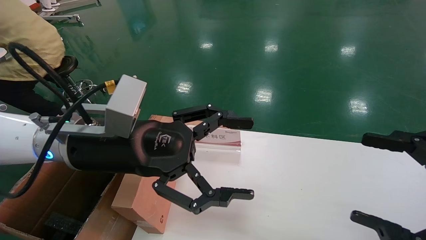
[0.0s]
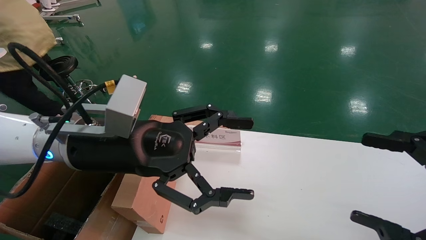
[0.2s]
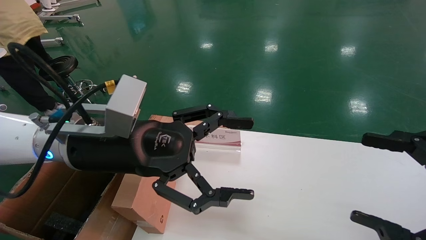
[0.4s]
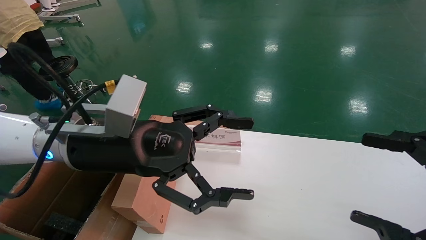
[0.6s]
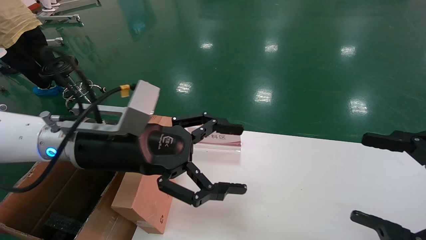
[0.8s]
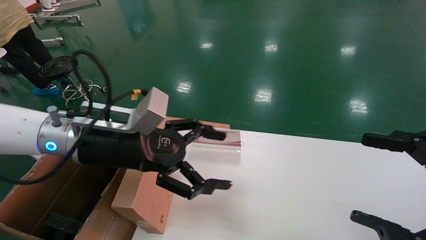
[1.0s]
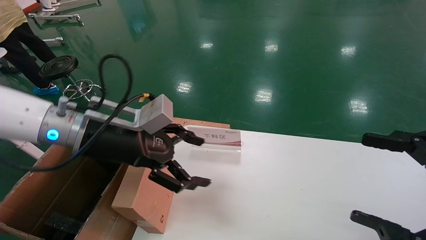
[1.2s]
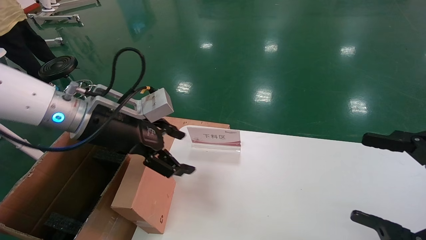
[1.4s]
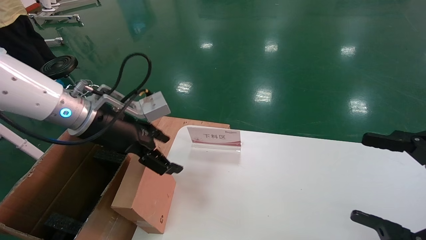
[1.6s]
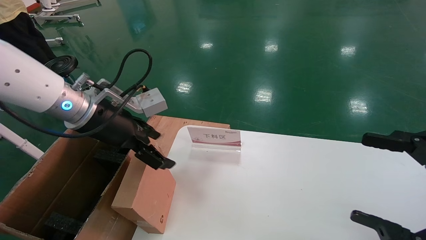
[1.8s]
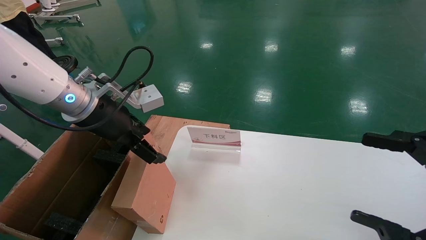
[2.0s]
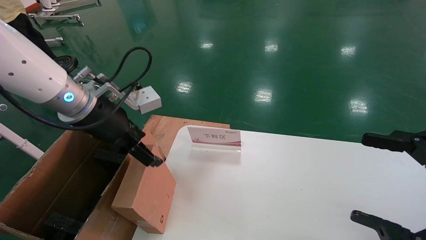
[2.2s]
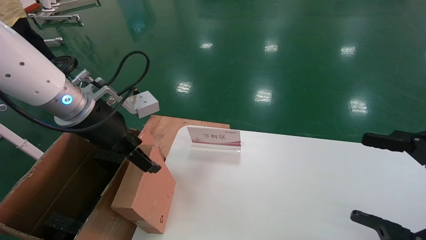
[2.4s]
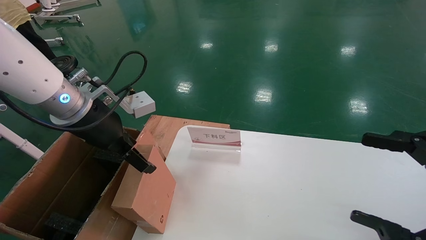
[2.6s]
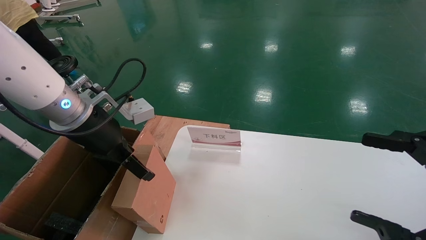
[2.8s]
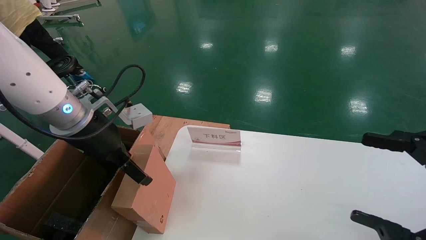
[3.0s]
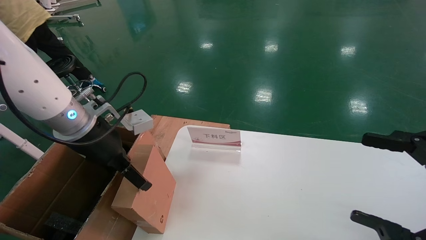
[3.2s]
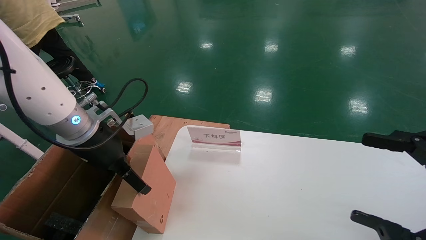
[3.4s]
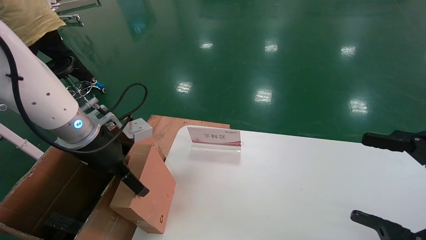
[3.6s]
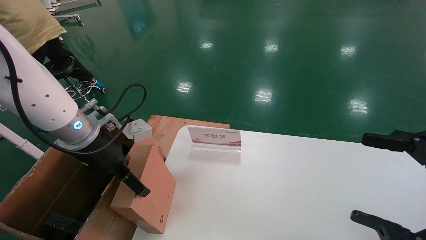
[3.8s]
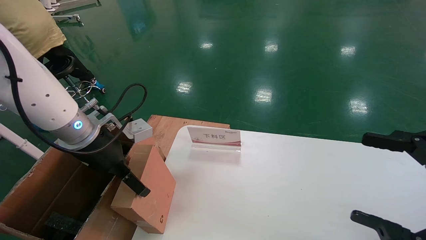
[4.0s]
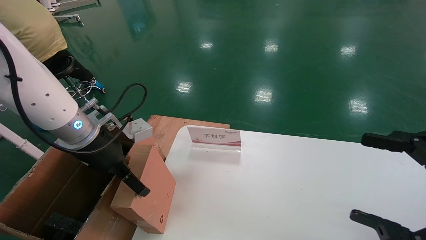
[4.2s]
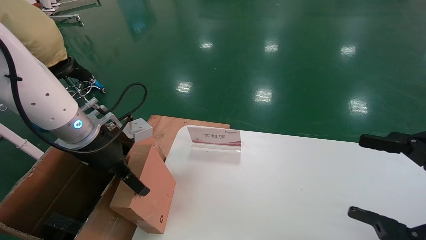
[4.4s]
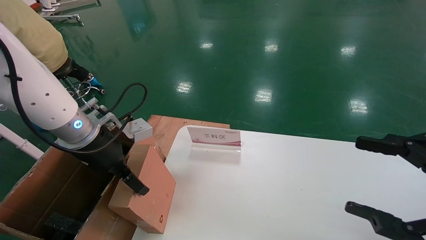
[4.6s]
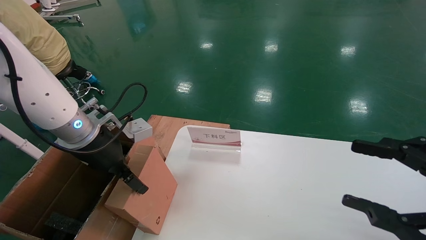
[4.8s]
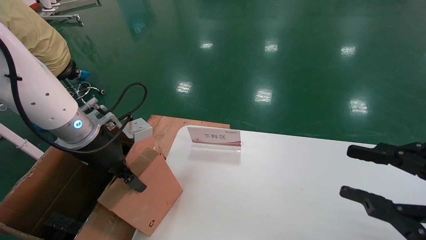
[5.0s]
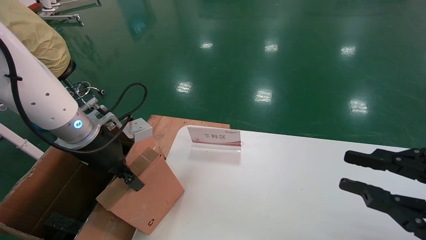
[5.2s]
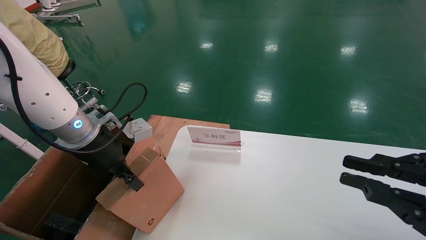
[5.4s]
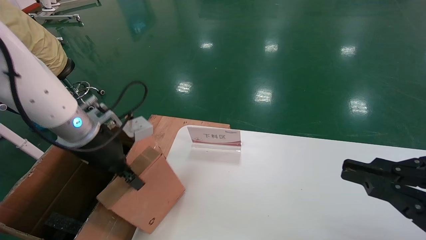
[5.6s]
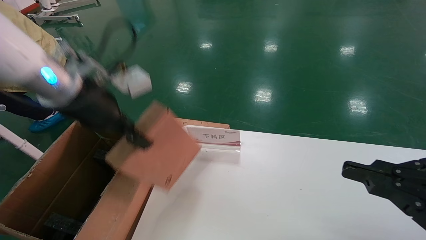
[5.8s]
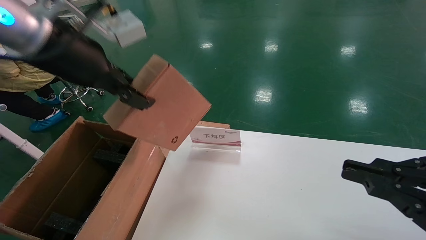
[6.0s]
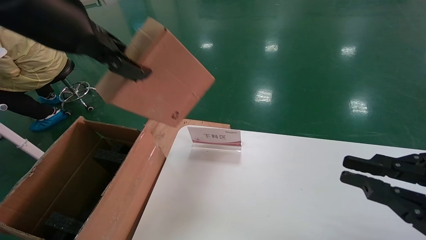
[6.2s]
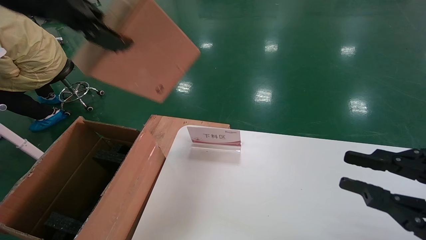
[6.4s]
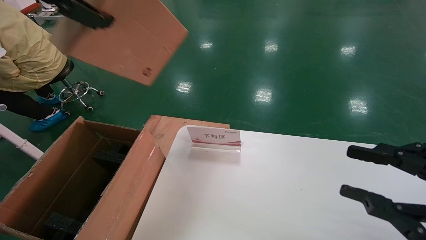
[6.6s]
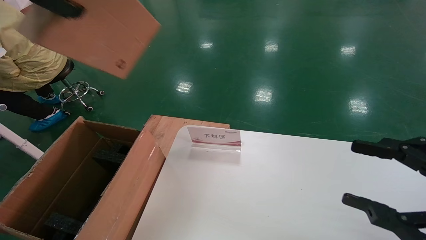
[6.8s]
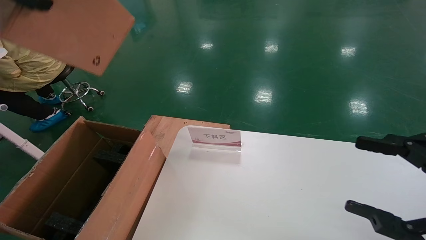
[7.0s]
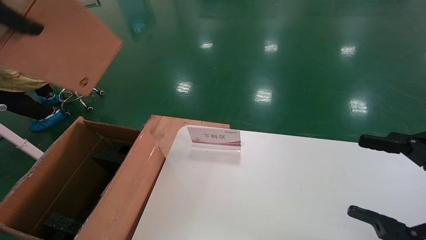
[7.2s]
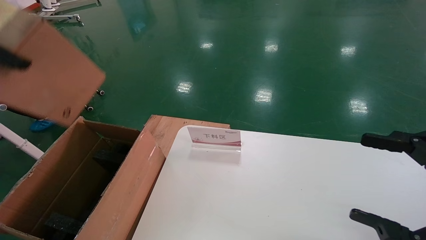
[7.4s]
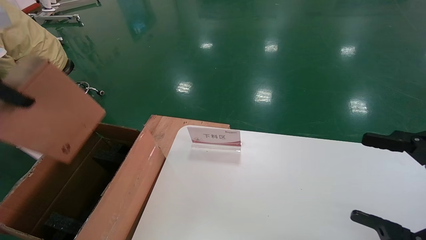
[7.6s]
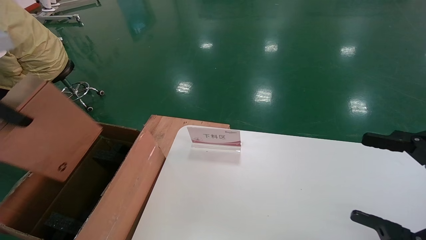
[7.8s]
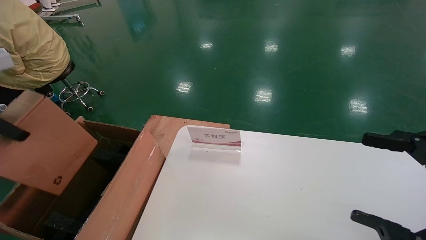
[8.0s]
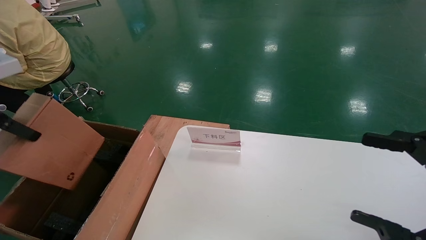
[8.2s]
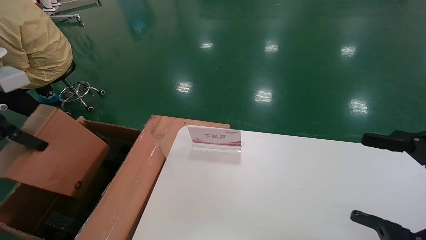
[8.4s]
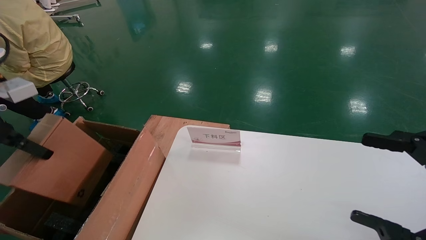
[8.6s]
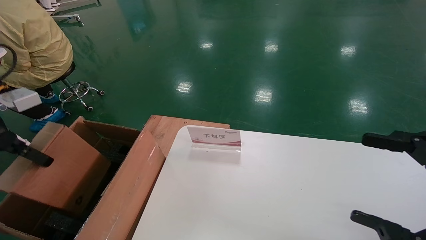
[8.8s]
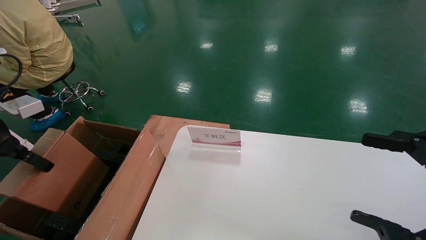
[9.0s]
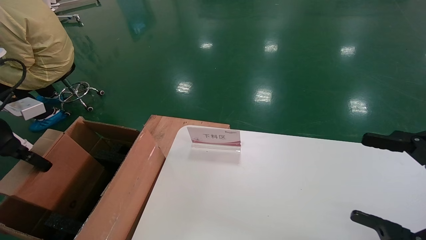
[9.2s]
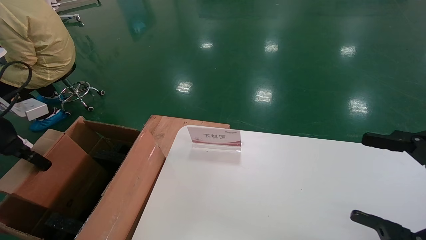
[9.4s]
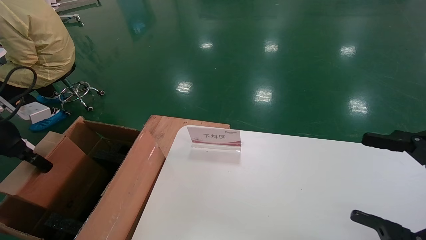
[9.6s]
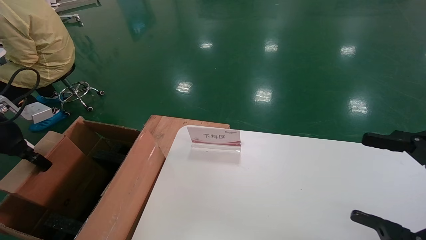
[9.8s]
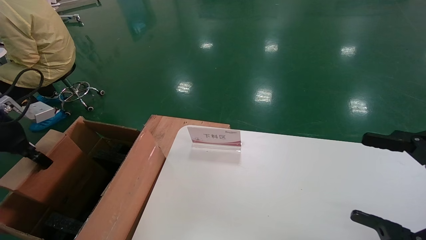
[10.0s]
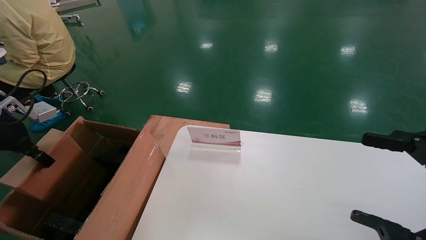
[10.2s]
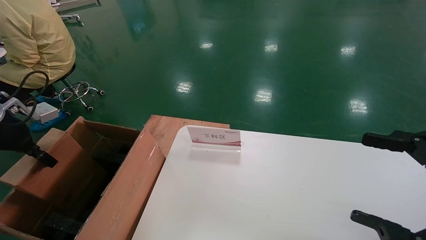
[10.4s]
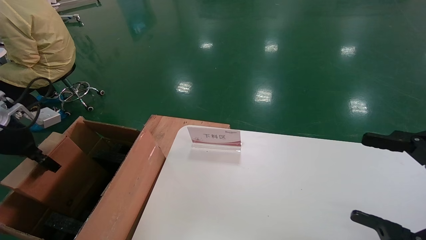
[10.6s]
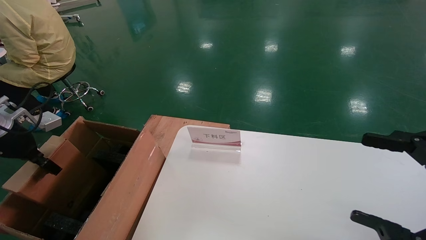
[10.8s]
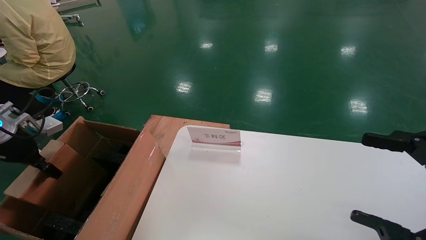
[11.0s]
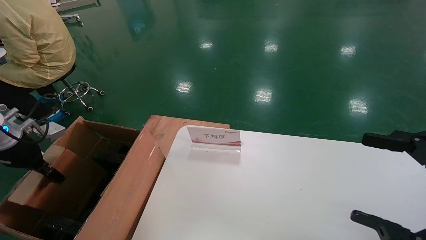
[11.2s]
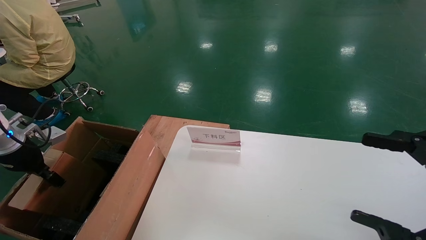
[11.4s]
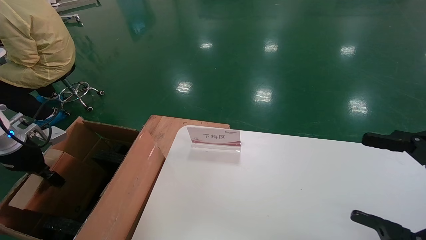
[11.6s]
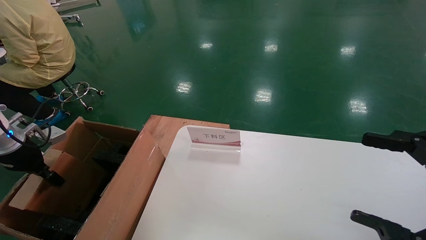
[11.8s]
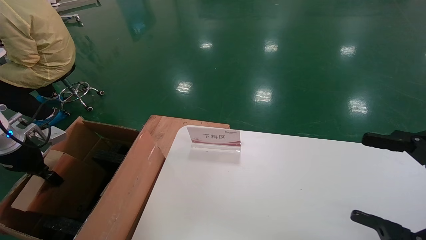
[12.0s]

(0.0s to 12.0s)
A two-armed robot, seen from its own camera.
Task of the whole recording: pick up the small cardboard box and load it into the large cardboard box.
Step, 1.2s - 5.0s: Pick up the mouse and power cord box.
Step, 5.2s - 12.0s: Place the mouse and power cord box into the case.
0.0s - 1.6s: The left gripper heads forward and to the left, covering about 10 cm.
3.0s - 4.4s: There are only small adjustments of the grippers.
4.4s - 6.0s: The left gripper moves upward, roughly 15 cm, and closes up; the right gripper closes up.
6.0s - 7.6s: The right gripper opens up. Meanwhile the left gripper heads to the left and backward, covering approximately 15 cm.
7.6s - 9.0s: The left gripper shifts about 15 cm downward and to the left.
9.0s - 10.4s: The left gripper heads forward, covering some 5 cm.
10.4s - 12.0s: The left gripper shifts approximately 5 cm downward.

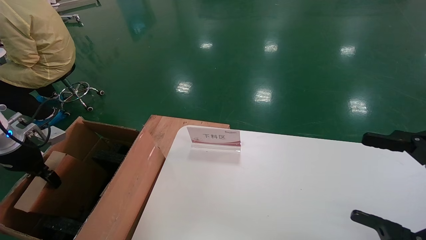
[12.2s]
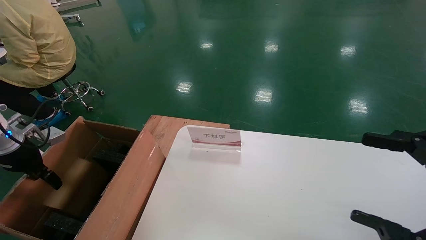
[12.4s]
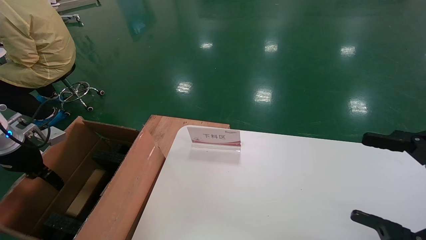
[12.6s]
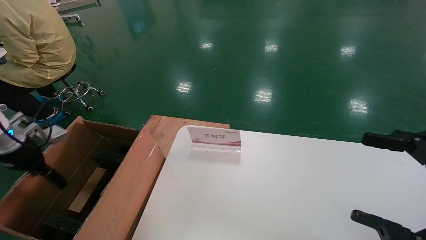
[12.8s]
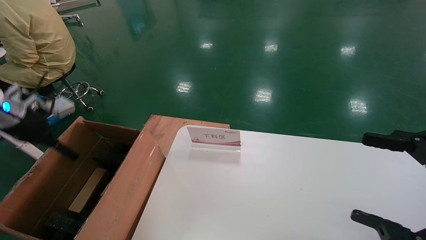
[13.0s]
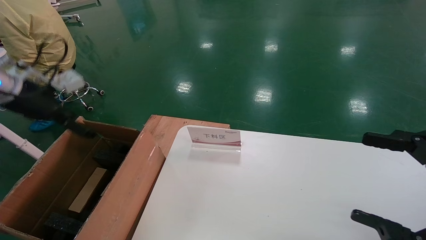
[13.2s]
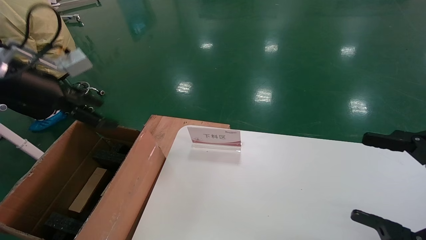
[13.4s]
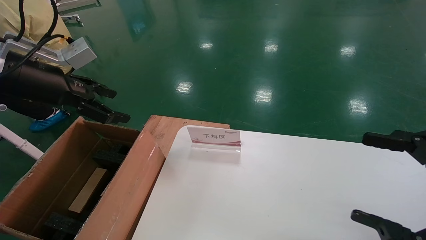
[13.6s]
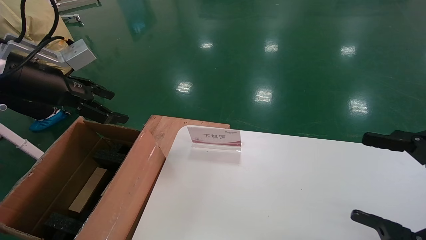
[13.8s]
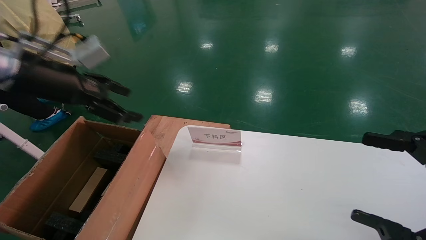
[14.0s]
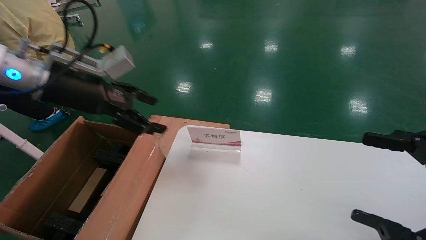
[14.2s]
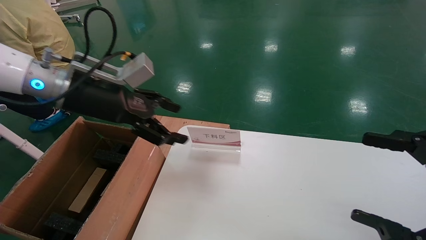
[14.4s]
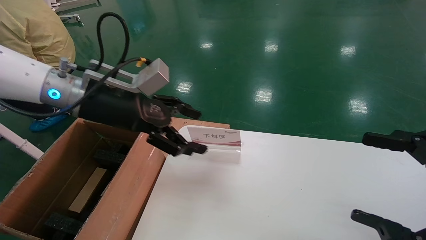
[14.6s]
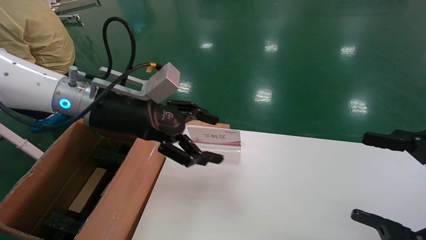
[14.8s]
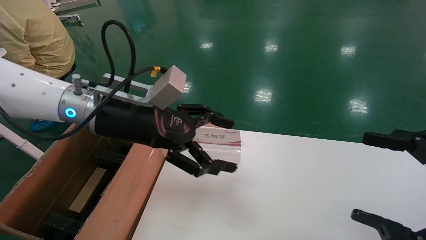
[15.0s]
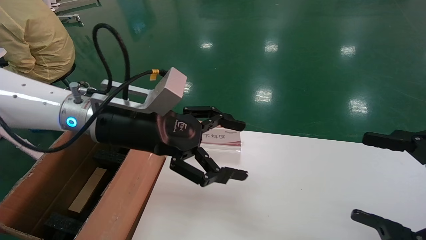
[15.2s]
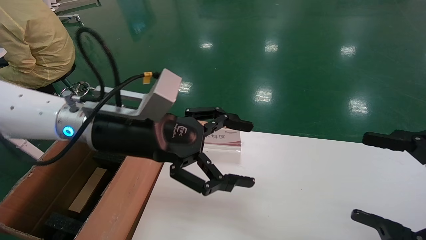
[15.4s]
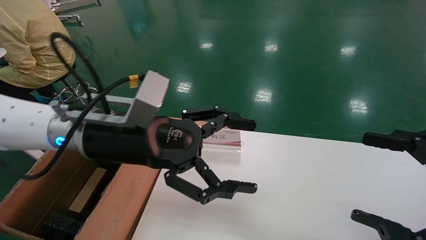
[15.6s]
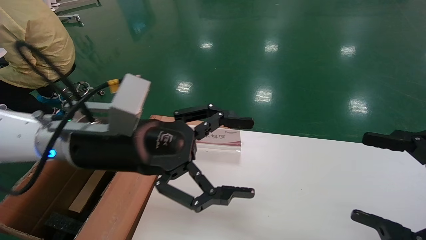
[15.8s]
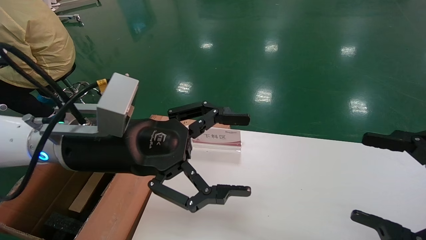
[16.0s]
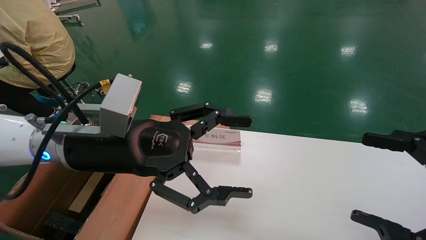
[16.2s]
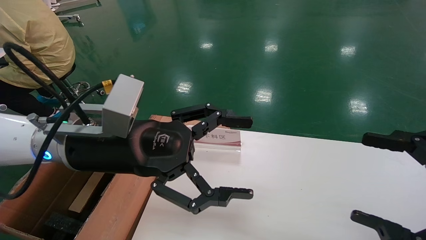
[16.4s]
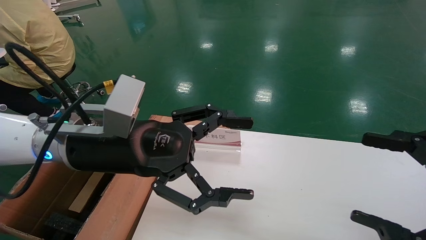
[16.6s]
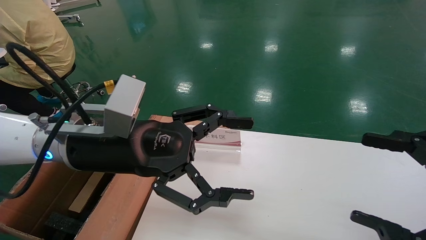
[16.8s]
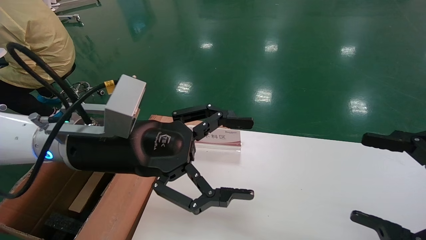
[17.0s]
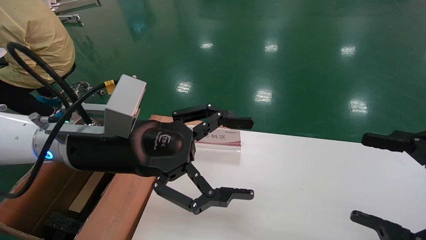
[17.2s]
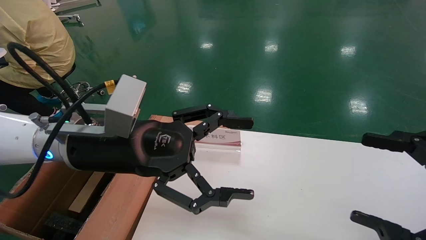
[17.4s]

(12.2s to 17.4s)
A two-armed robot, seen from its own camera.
Task of the whole recording: pick up the small cardboard box and load it into the large cardboard box.
12.2s - 14.0s: The left gripper shifts some 25 cm to the right and upward, and opens up.
14.0s - 15.6s: The left gripper is displaced to the right and downward by about 20 cm.
15.6s - 17.4s: The grippers make only small movements.
